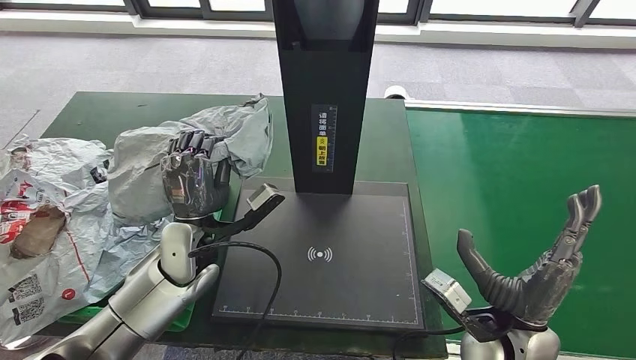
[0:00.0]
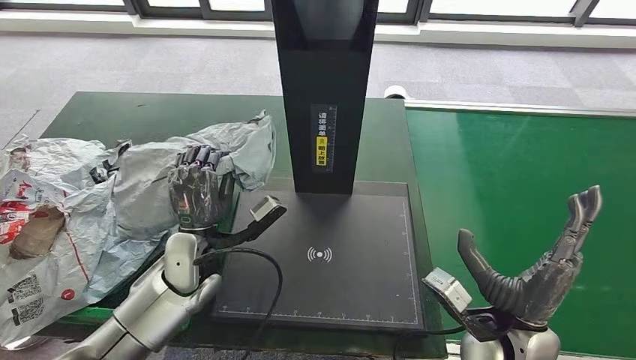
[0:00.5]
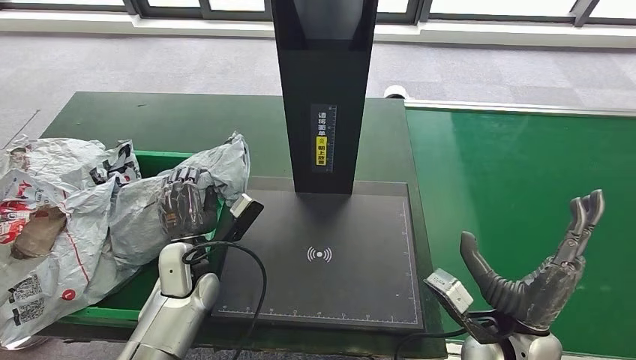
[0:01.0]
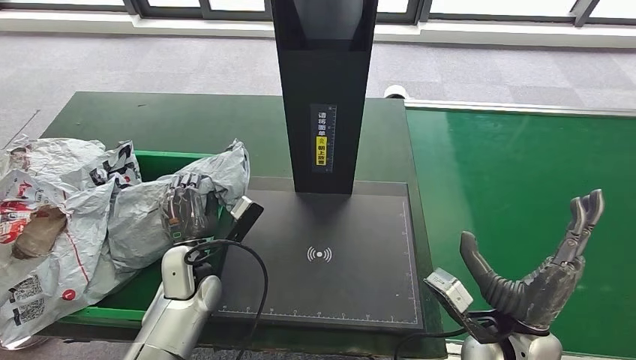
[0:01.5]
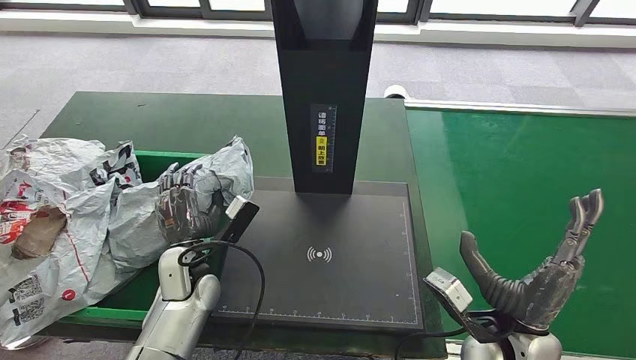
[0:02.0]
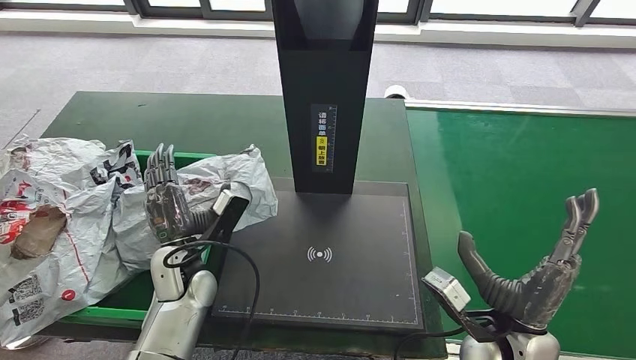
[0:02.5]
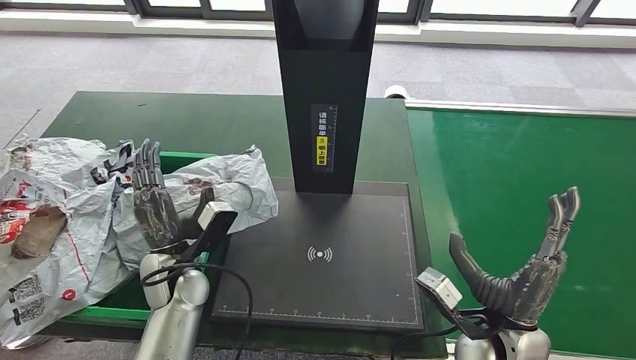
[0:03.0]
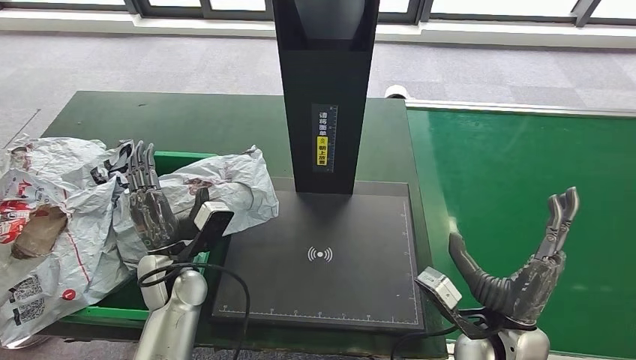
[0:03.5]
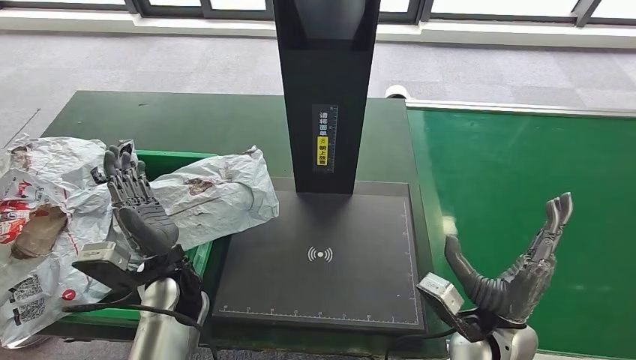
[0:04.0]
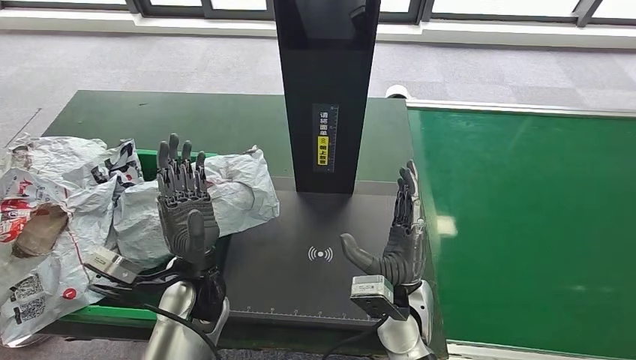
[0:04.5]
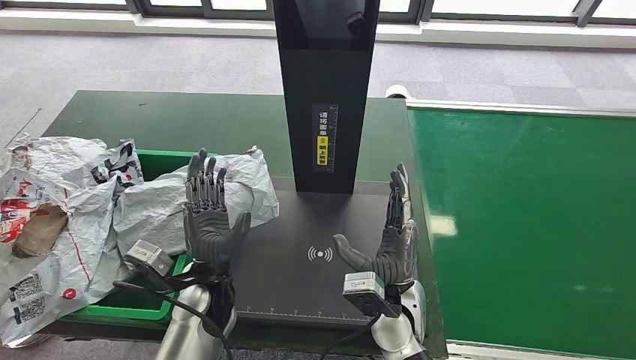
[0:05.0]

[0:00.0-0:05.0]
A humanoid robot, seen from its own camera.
Step, 0:01.0 to 0:05.0: Place the parcel into the delivery box.
0:00.0 to 0:02.5: The left hand shifts roughly 5 cm downward.
0:02.5 to 0:05.0: The right hand is displaced to the left by about 15 cm. The left hand shifts approximately 5 cm to the right.

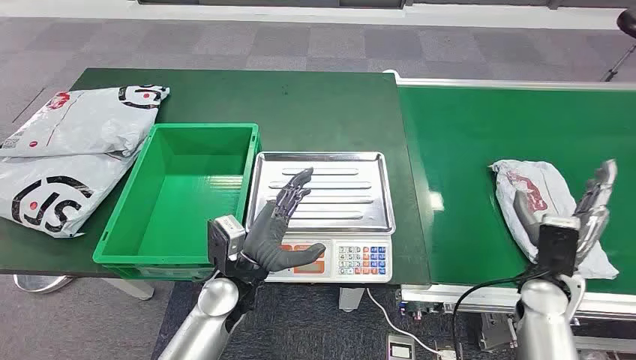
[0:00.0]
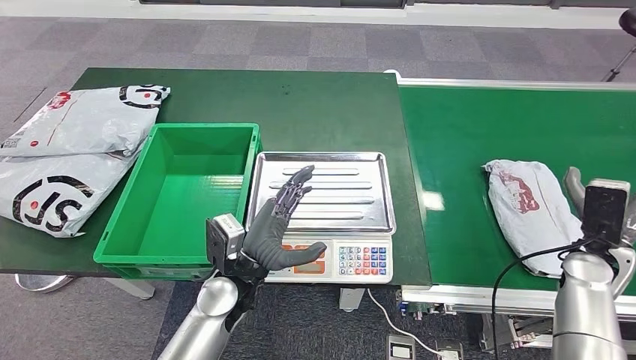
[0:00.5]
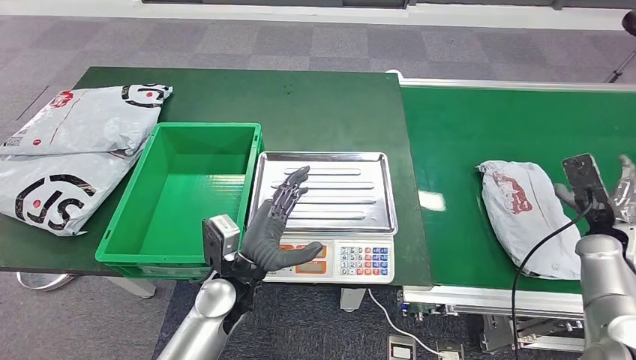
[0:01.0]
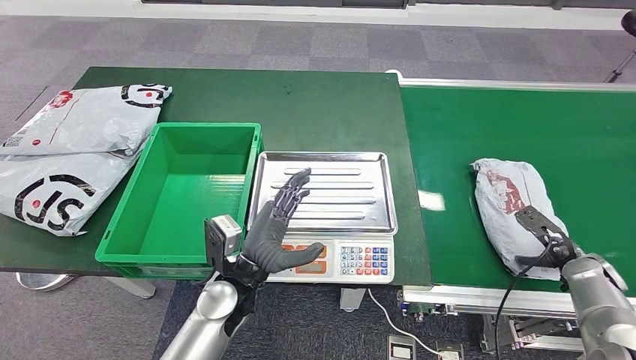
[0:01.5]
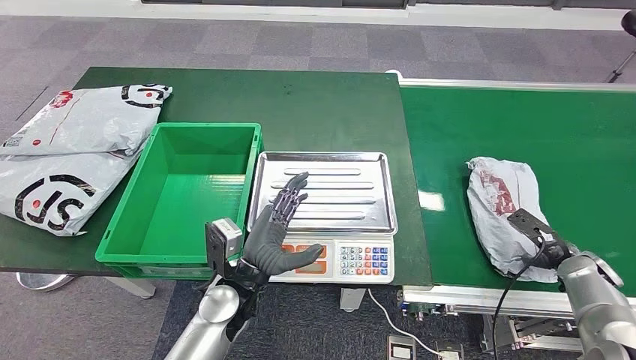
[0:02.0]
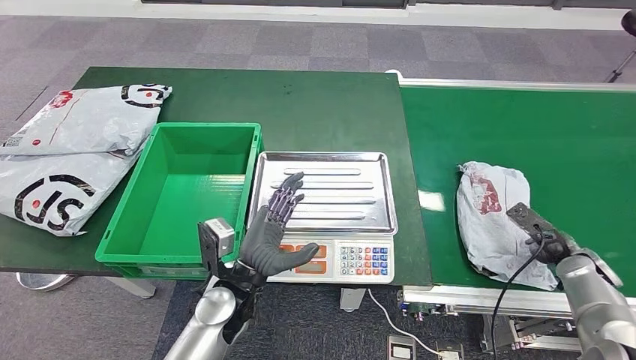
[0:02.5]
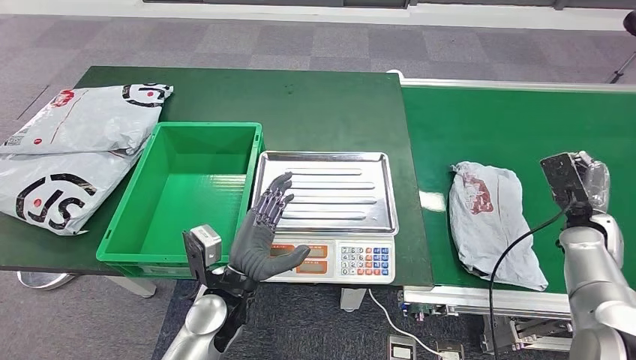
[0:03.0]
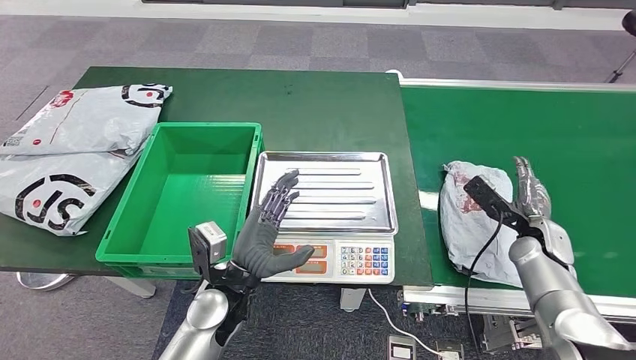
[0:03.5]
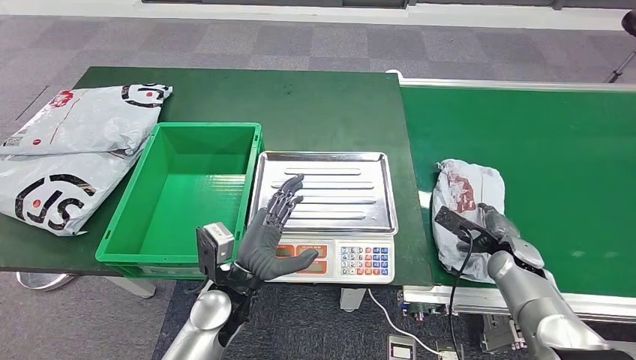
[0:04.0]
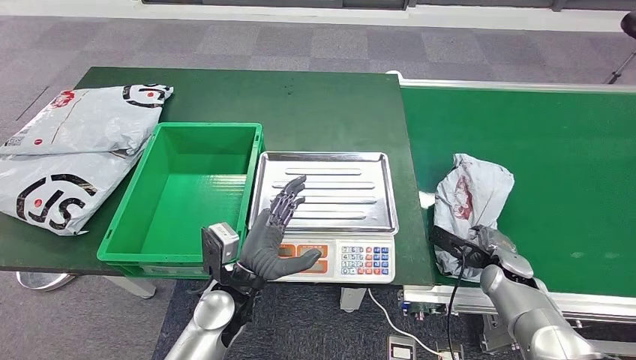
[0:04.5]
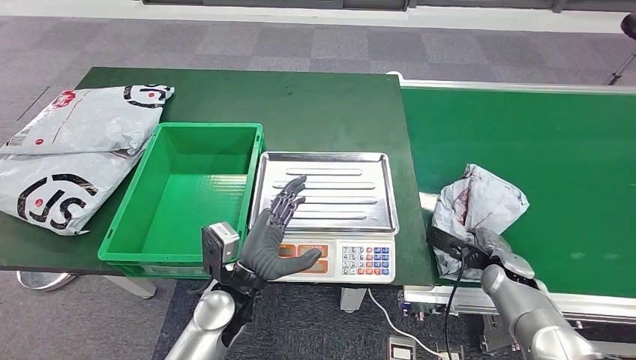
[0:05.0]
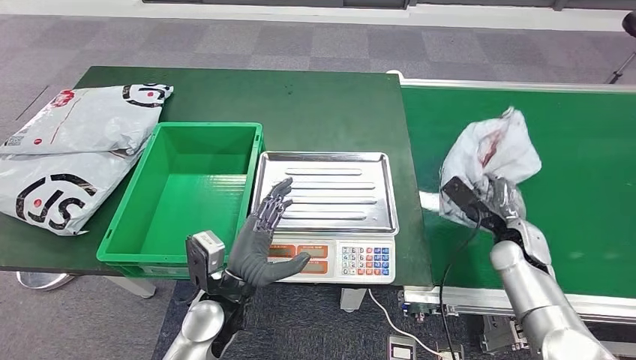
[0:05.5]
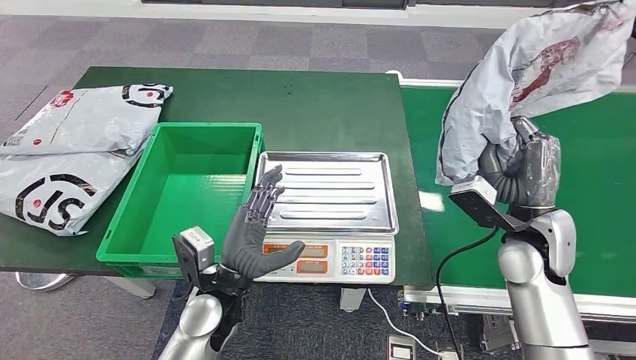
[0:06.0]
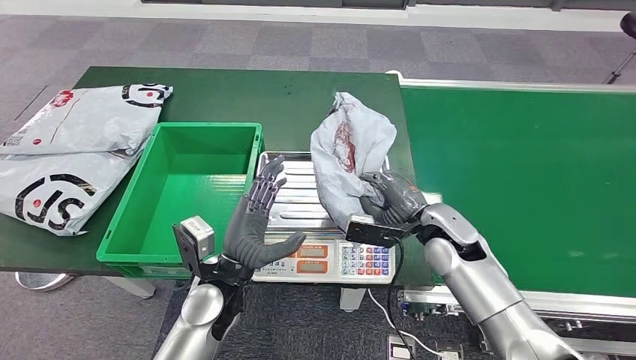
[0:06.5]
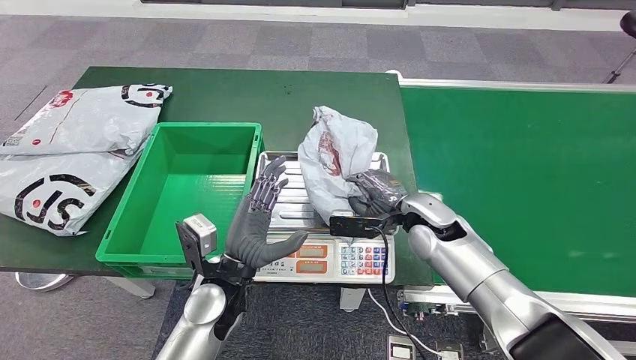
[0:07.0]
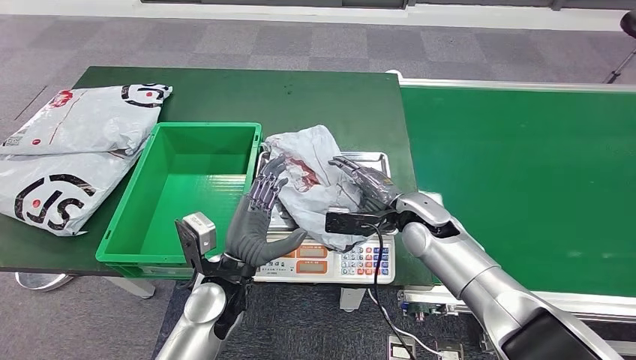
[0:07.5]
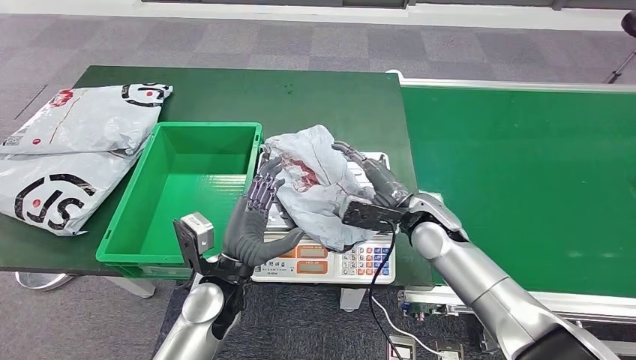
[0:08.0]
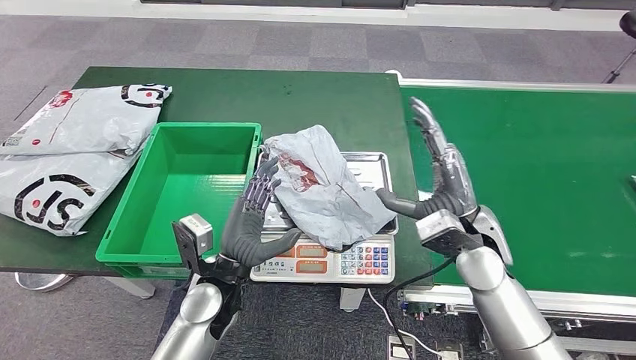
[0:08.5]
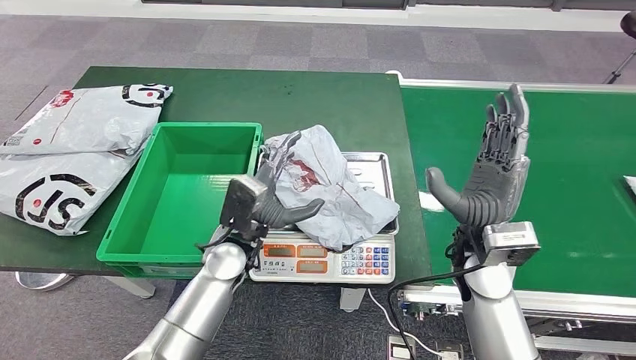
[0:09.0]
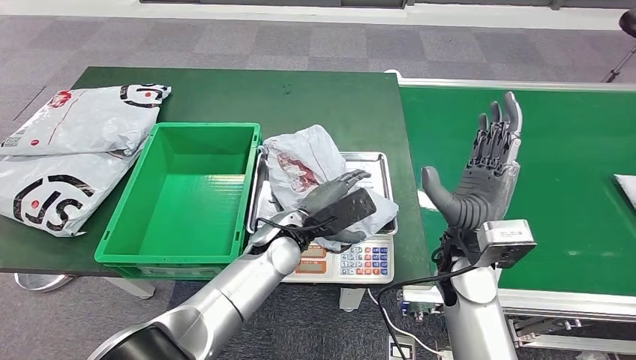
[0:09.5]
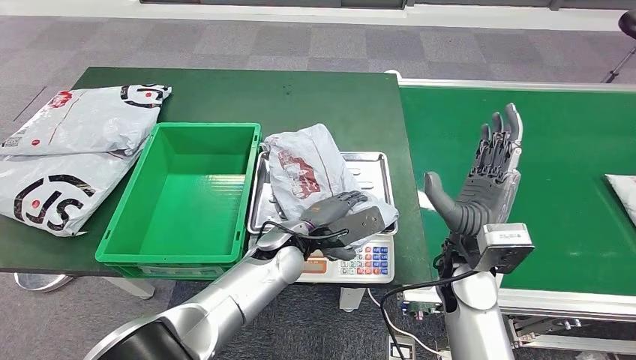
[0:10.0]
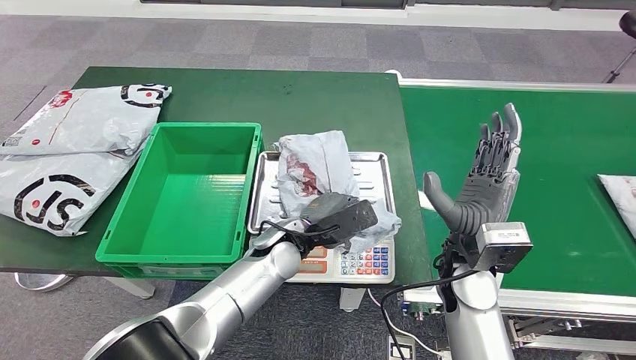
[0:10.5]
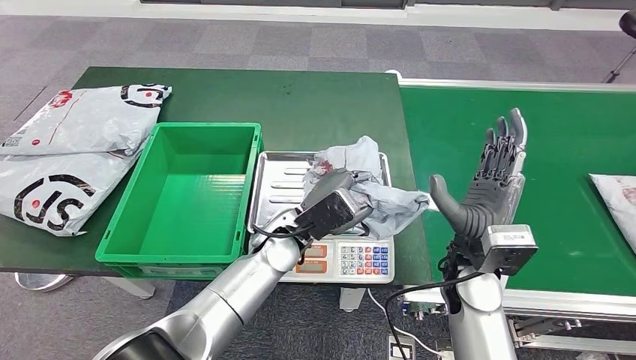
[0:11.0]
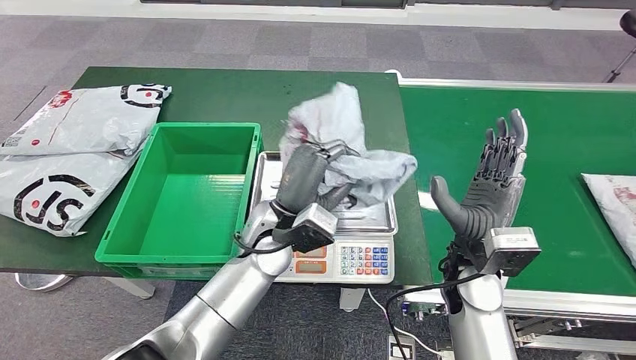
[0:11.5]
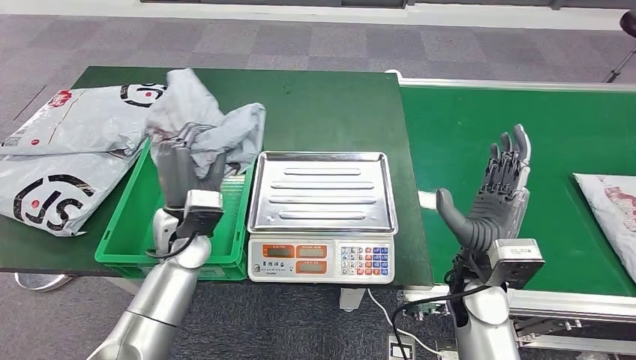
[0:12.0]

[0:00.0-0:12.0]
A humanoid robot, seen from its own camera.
Step, 0:00.0 to 0:05.5: Take the parcel off the conveyor belt.
Step, 0:06.0 to 0:09.0: Place the parcel onto the inbound machine.
Step, 0:09.5 to 0:11.5: Pick up the parcel from the inbound machine.
0:02.0 to 0:04.0: The right hand travels to the left by about 10 cm.

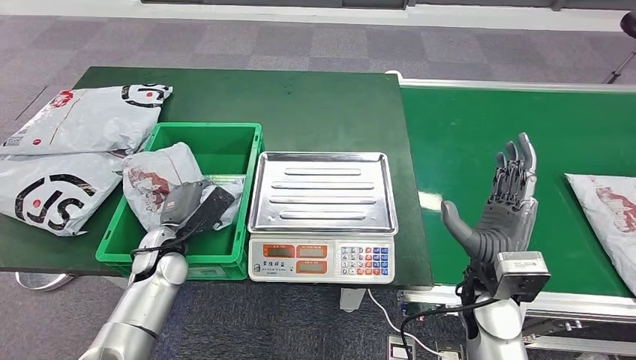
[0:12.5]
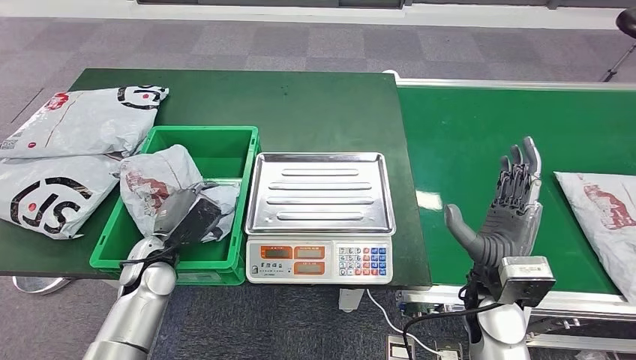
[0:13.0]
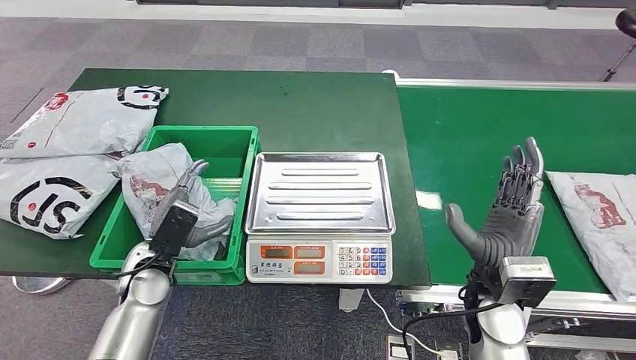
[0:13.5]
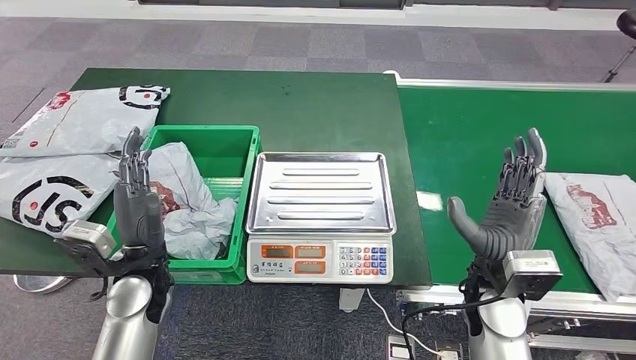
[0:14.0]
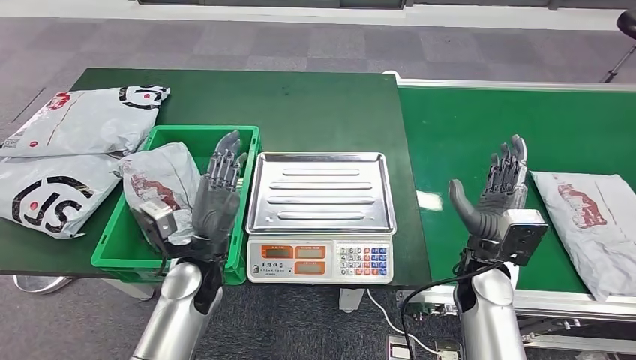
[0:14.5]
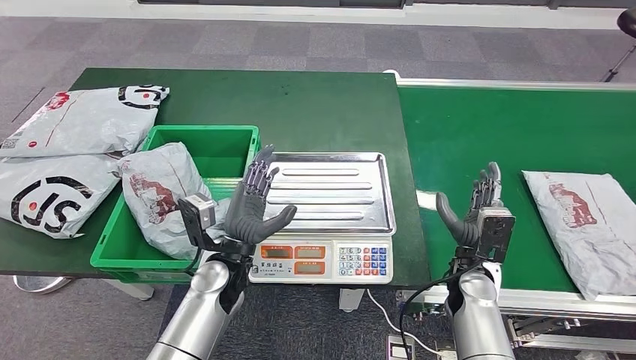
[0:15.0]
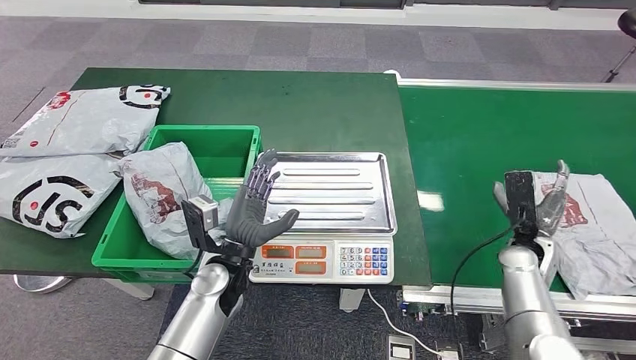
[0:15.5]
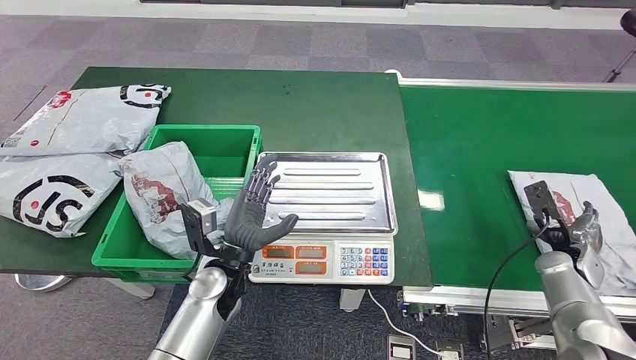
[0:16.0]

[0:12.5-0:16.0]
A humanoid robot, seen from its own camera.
Step, 0:12.5 to 0:15.5: Put the parcel inside the courier box.
